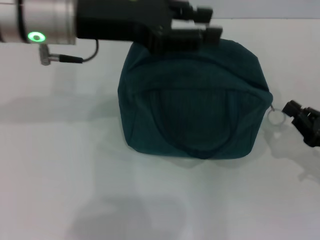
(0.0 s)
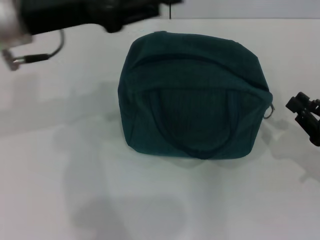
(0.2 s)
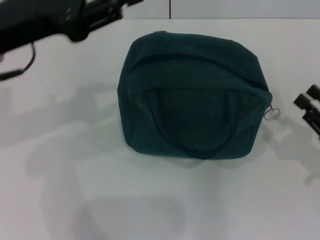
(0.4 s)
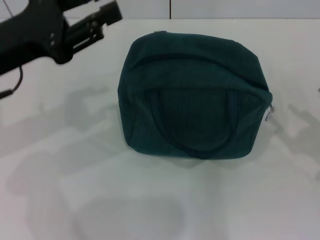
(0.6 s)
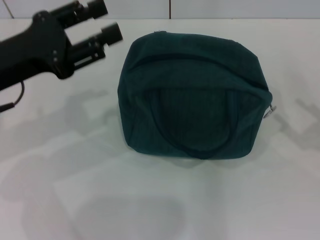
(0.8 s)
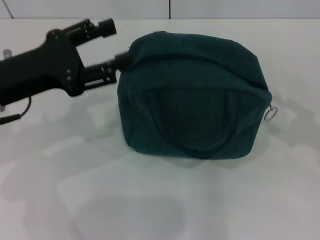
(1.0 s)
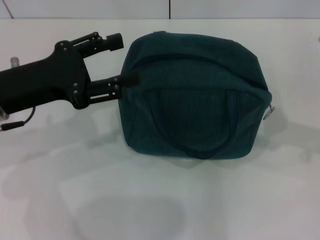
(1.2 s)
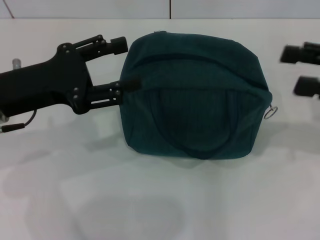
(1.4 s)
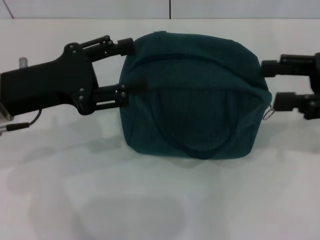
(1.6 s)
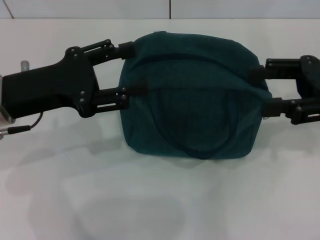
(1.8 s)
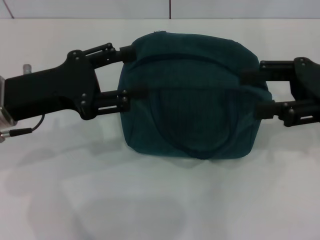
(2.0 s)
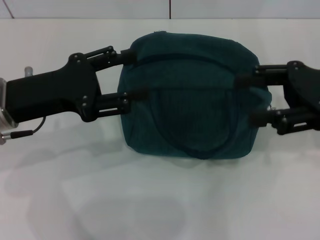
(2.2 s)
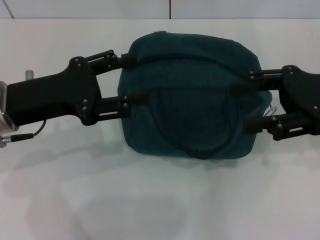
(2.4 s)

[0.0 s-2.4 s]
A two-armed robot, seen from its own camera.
0.0 to 1.2 s: The right gripper is displaced upward by approximately 15 cm, and opens; the left gripper heads to the left, downward and backward, covering approximately 15 cm.
1.2 to 2.4 s: The right gripper heads to the left, covering approximately 10 cm.
